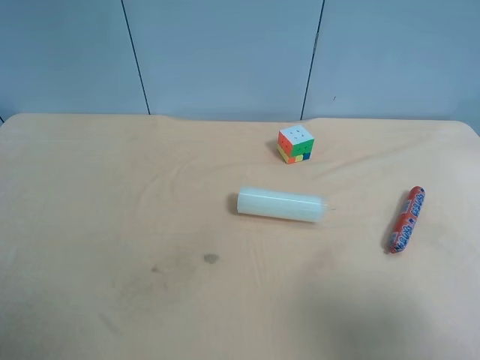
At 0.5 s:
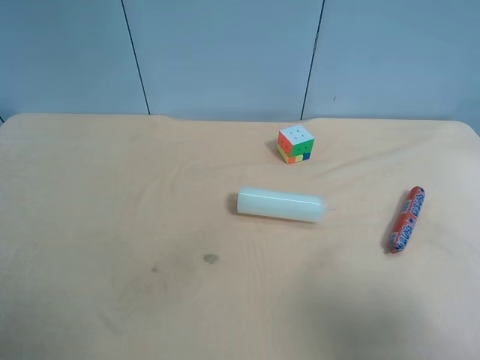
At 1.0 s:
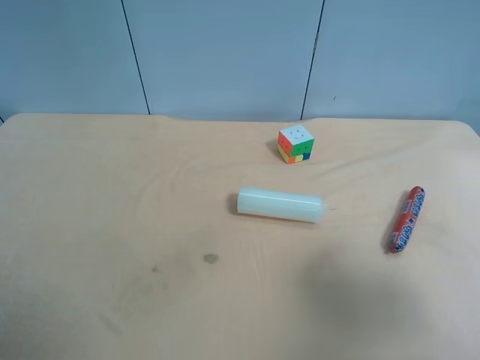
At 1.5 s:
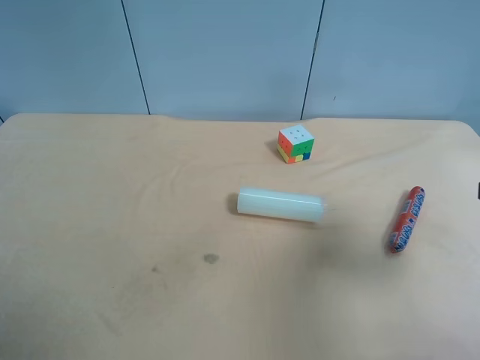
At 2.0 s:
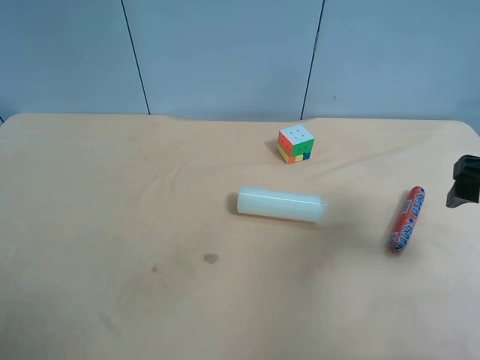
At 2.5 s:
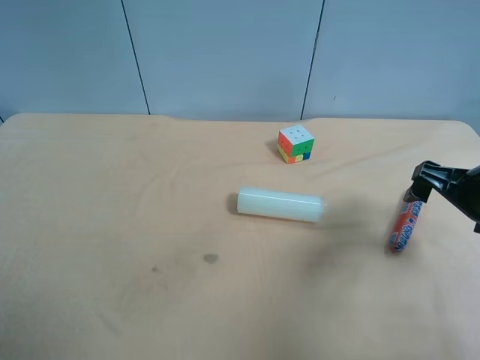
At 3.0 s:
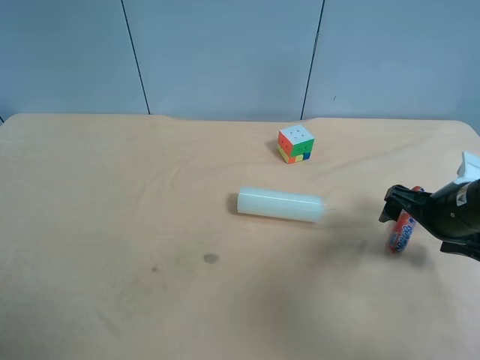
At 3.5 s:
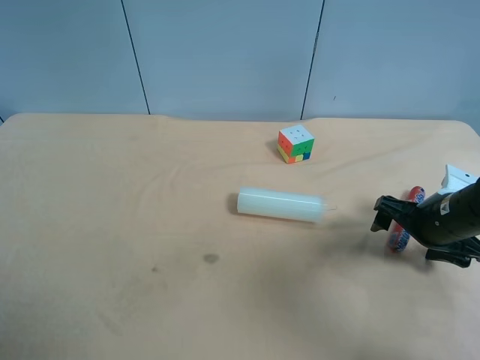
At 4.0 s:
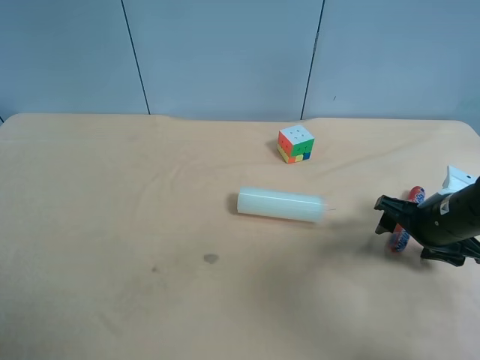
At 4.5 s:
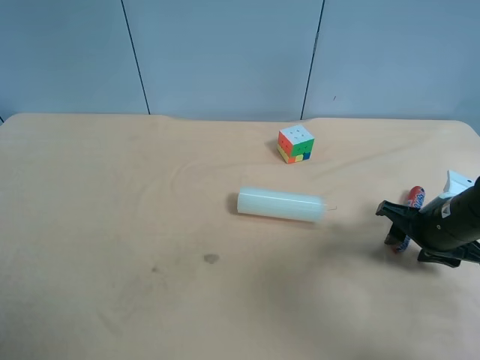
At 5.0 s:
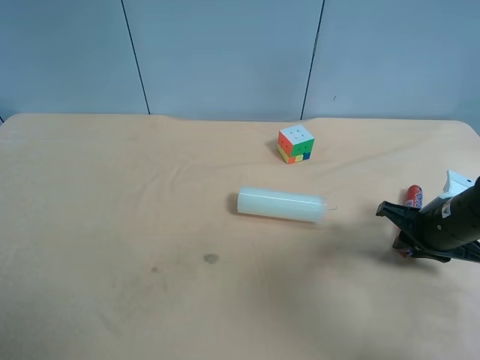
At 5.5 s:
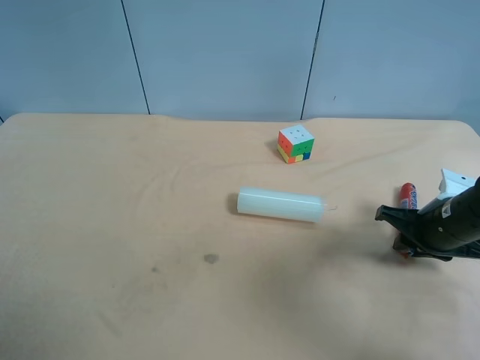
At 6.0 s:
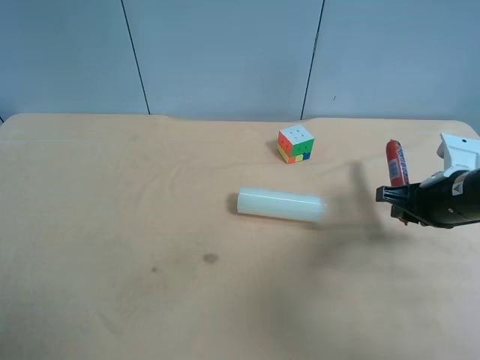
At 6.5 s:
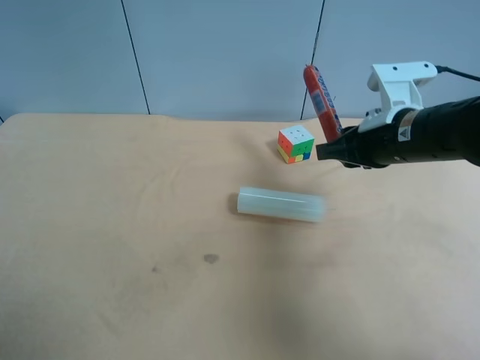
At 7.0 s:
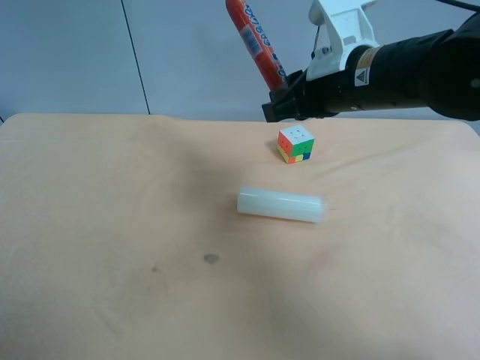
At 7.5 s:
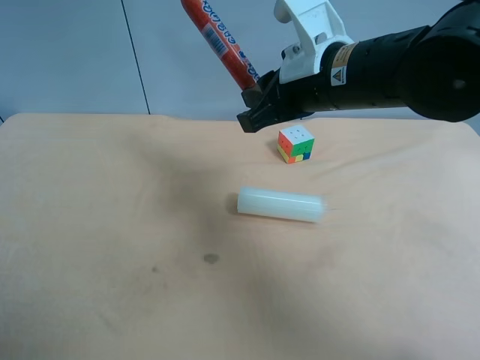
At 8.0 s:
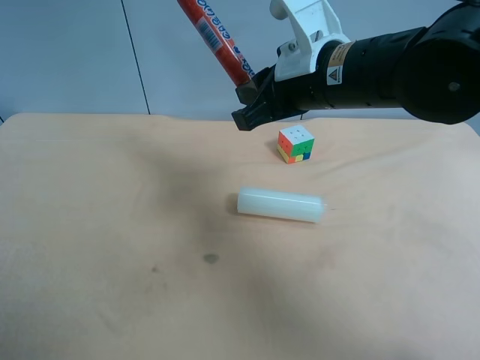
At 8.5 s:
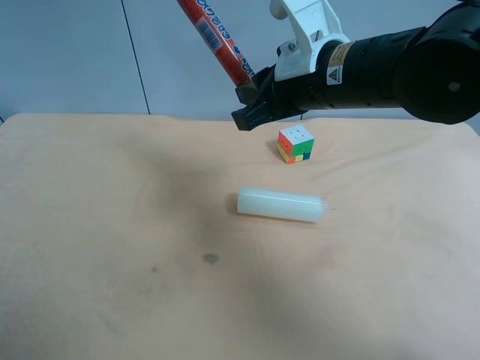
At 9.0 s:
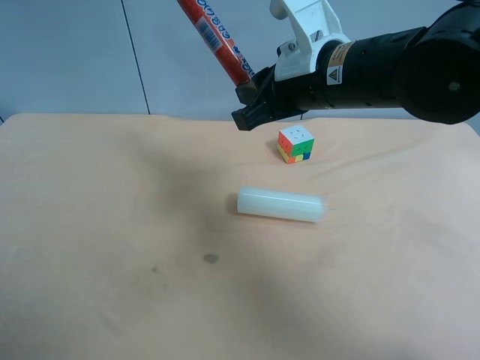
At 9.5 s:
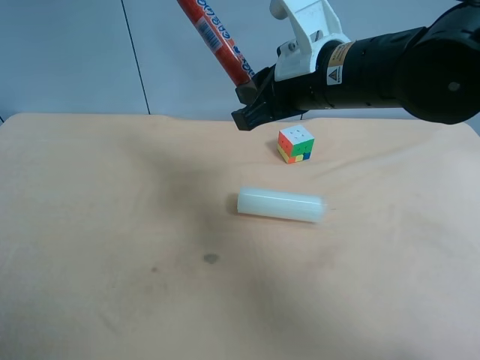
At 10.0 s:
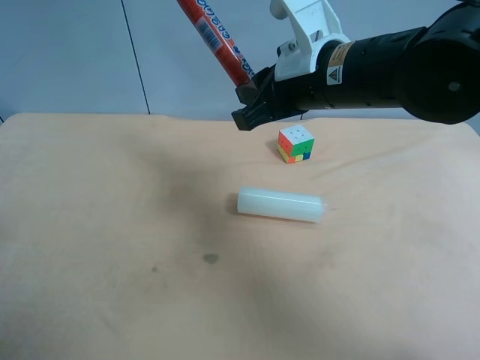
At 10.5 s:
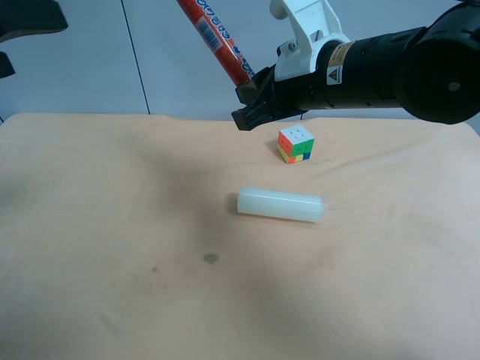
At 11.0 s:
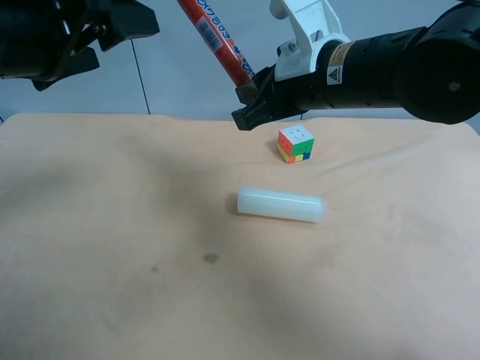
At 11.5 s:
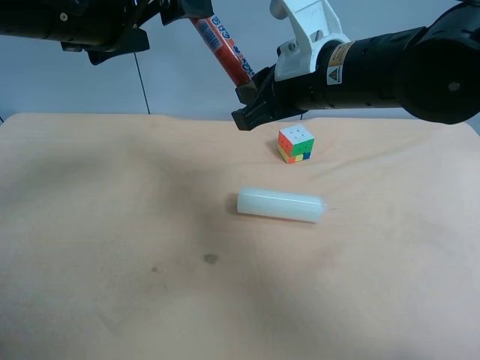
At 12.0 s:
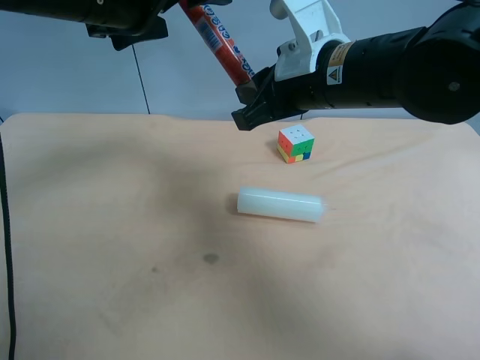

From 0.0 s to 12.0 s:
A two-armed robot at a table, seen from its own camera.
Task of the whole recording: use the right gripper to pick up the item and transfer it from the right gripper to the left gripper.
From 0.0 s to 2.0 s: The right gripper goes about 20 cm forward.
From 2.0 s to 4.0 s: The right gripper is displaced downward by about 15 cm.
From 4.0 s to 6.0 s: The right gripper closes its fingers.
From 6.0 s to 8.0 s: The right gripper shifts some 25 cm to the left and upward.
From 10.0 s to 12.0 s: The left gripper moves forward and to the right, about 25 cm.

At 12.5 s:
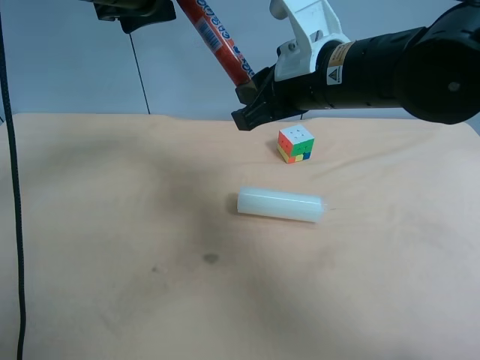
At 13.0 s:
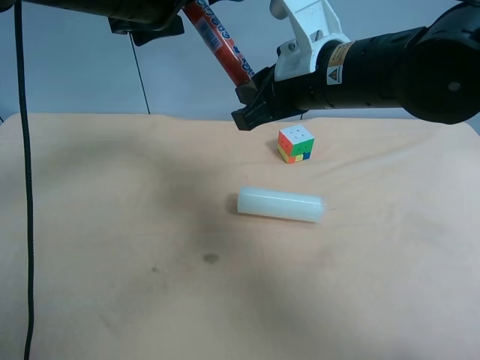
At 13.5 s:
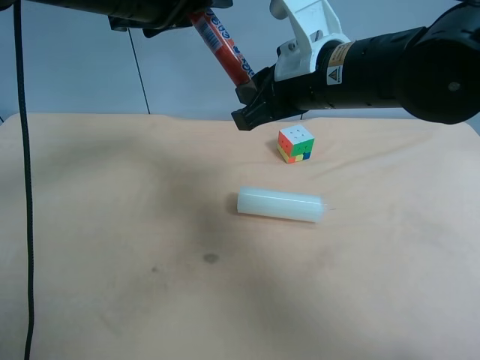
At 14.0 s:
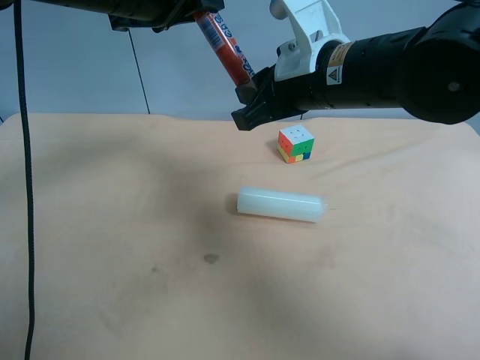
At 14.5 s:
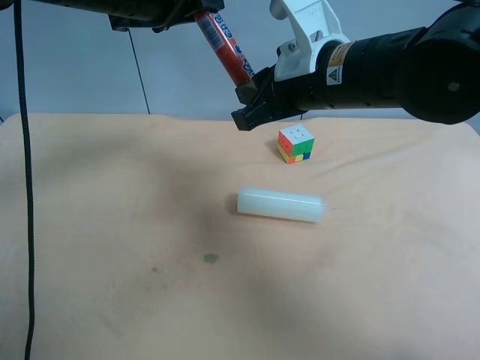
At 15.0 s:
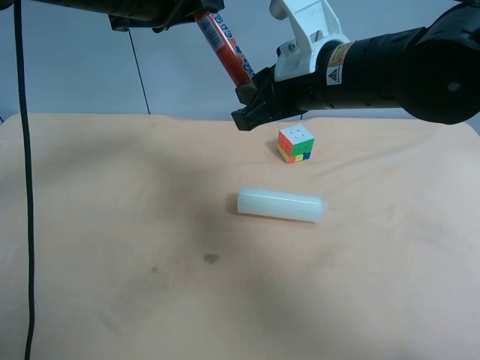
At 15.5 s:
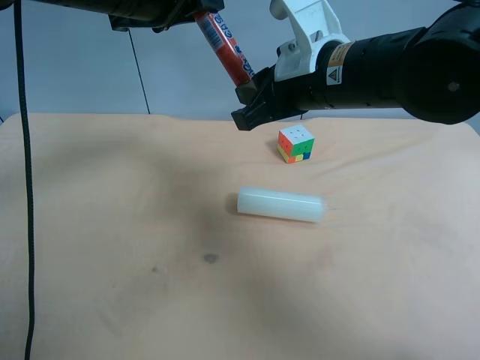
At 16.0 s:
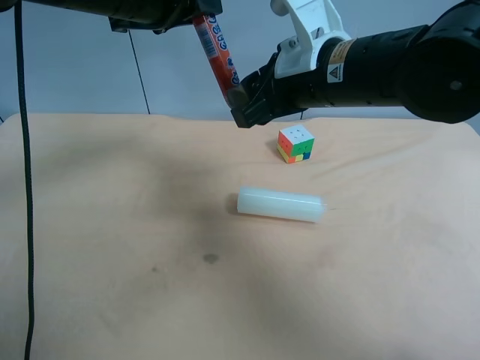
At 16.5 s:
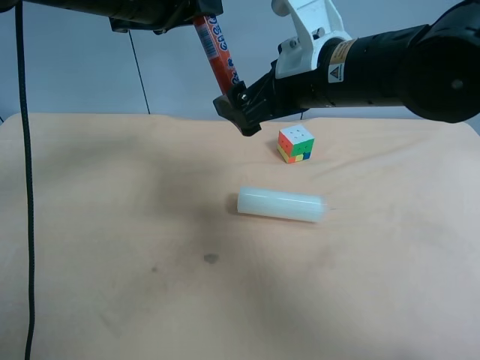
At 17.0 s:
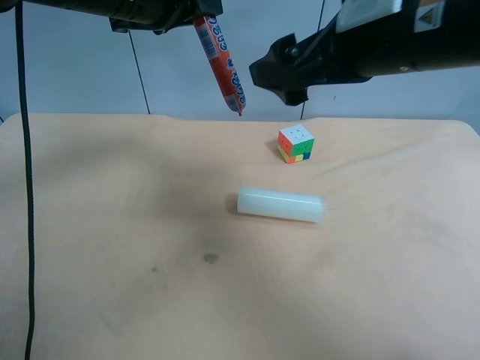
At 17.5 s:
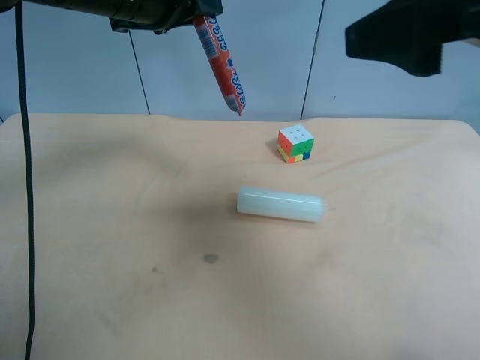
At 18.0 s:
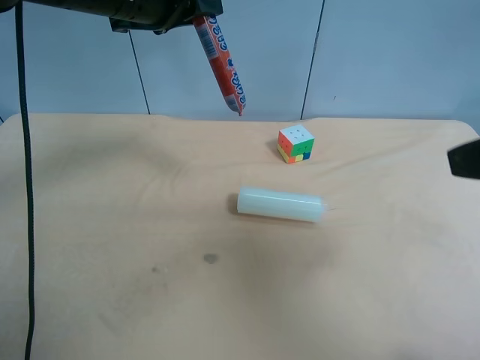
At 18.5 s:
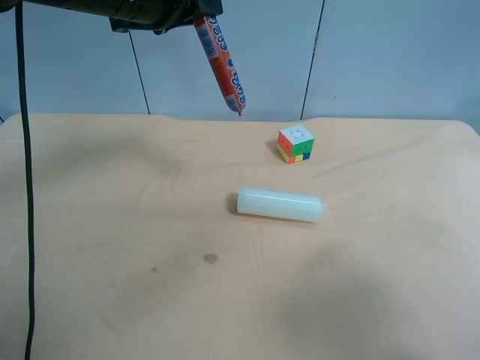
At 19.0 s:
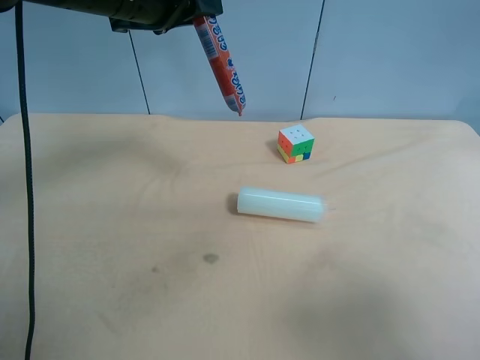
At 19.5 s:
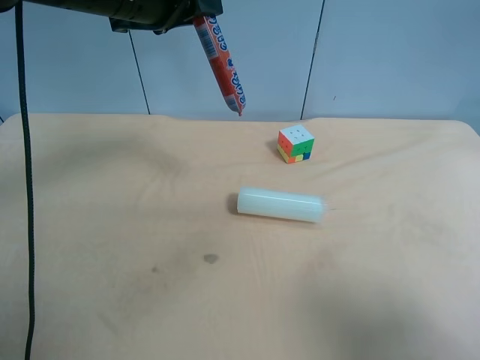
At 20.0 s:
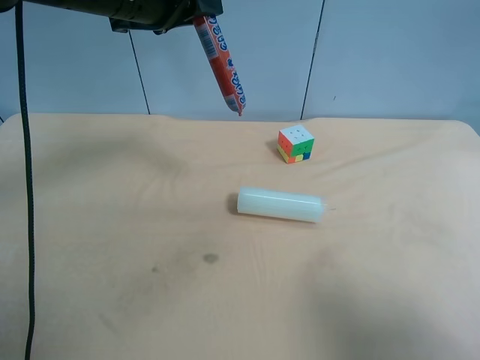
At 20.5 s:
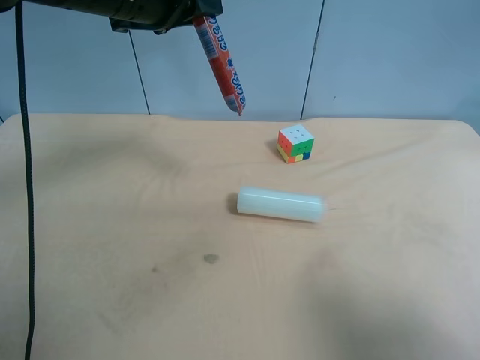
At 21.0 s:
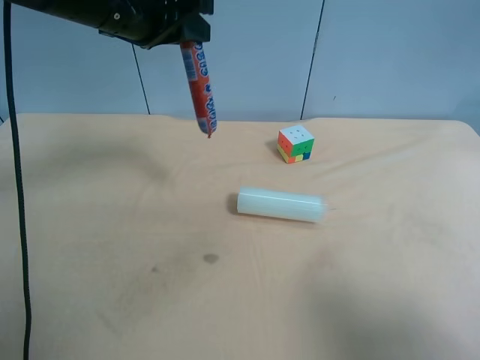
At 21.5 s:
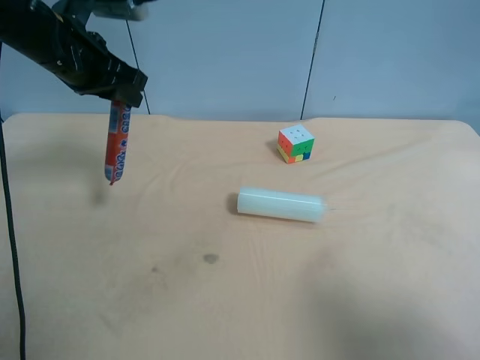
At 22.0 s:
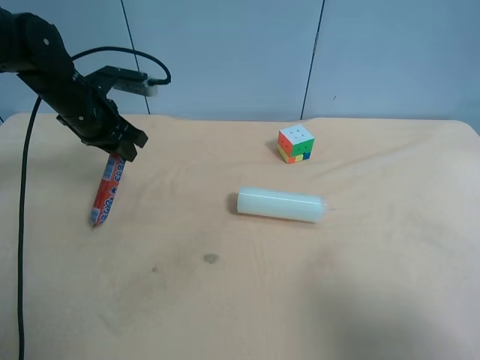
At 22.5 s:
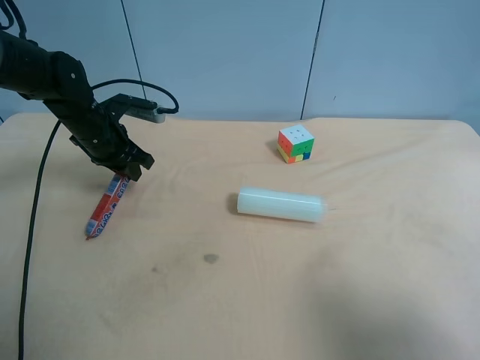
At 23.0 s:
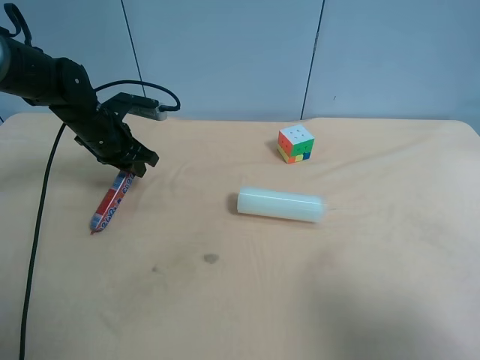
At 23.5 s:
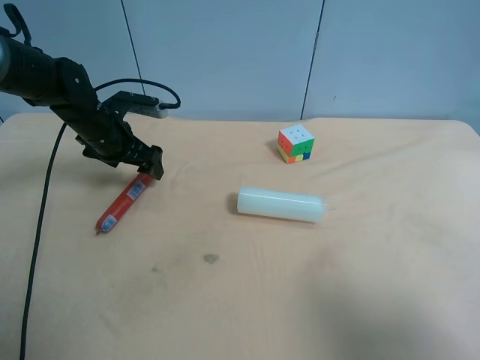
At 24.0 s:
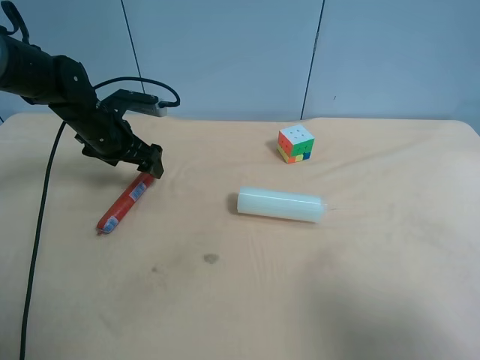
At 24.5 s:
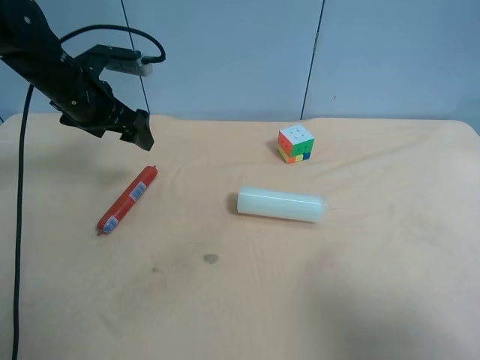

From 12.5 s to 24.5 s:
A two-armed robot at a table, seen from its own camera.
Task of the whole recording: use the right gripper to pick up the item and transfer it from the right gripper to the left gripper.
From 12.5 s to 14.5 s: The left gripper closes.
From 14.5 s to 16.5 s: The right gripper opens.
From 16.5 s to 18.5 s: The right gripper heads backward and to the right, covering approximately 35 cm.
From 20.5 s to 22.5 s: The left gripper travels downward and to the left by some 25 cm.
From 22.5 s to 24.5 s: The left gripper shifts about 10 cm upward, and opens its fingers.

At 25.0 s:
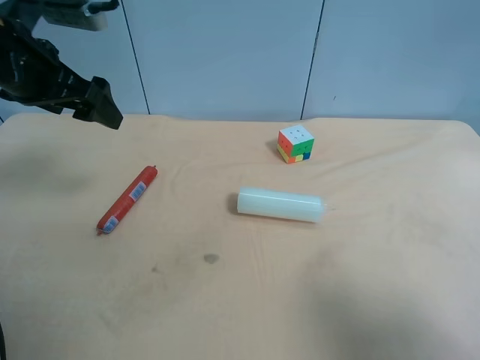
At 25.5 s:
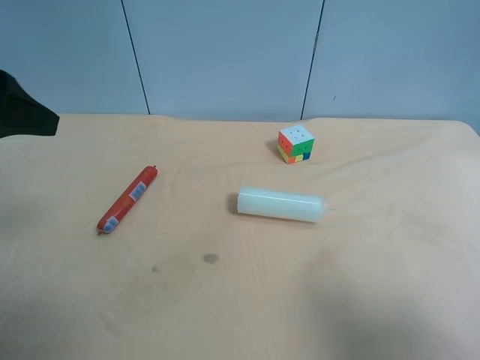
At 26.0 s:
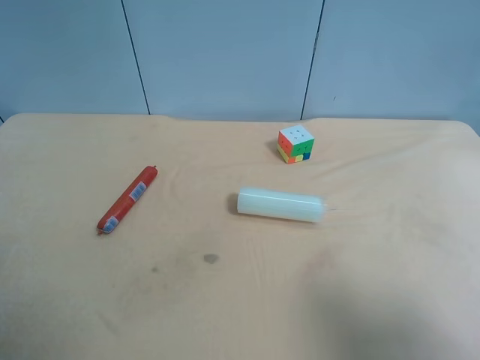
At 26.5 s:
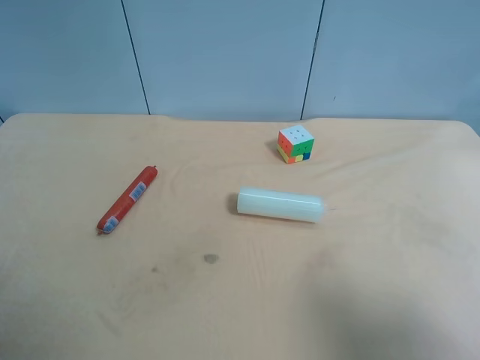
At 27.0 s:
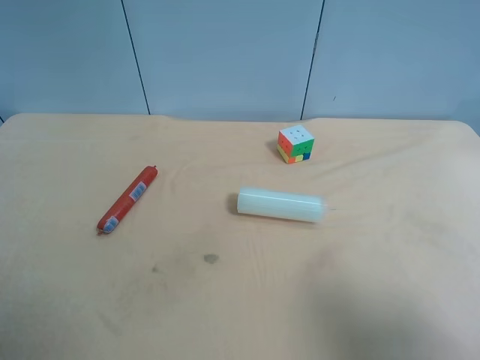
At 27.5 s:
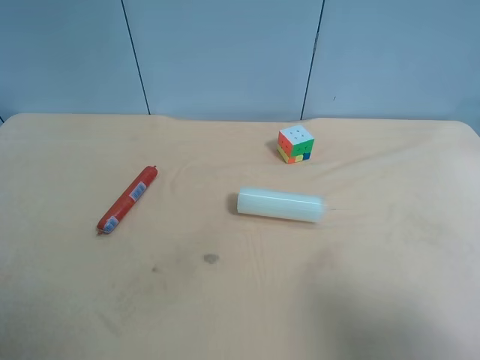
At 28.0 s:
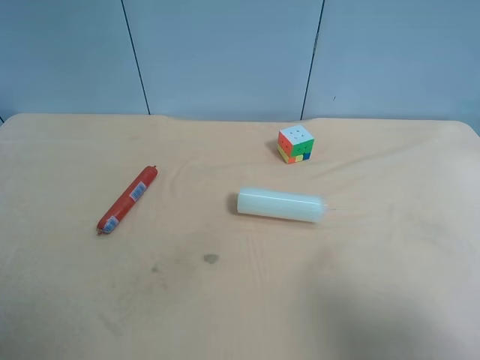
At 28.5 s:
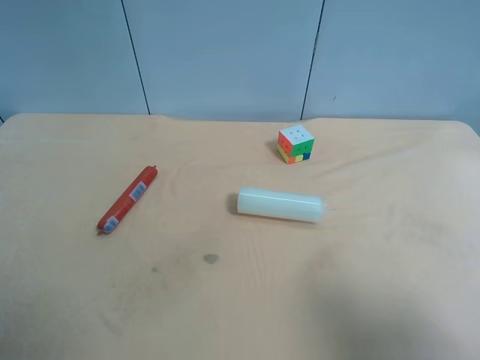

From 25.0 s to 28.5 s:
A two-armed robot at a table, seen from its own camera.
Task of the whole recording: use the right gripper to pick up the item and transfer it from the right gripper to the left gripper.
From 25.0 s to 27.0 s: The left gripper shifts some 30 cm backward.
From 27.0 s to 28.5 s: Both grippers stay put.
